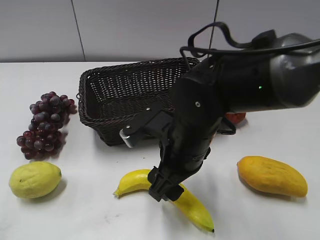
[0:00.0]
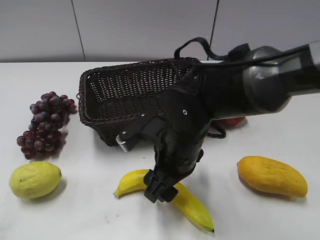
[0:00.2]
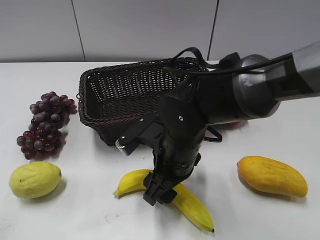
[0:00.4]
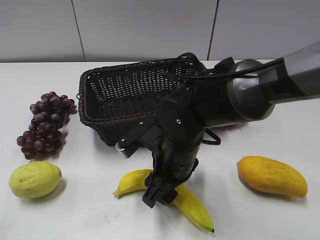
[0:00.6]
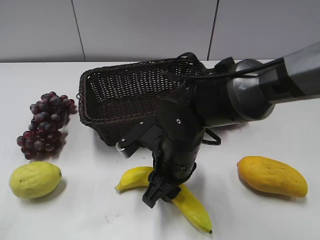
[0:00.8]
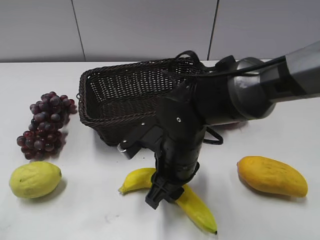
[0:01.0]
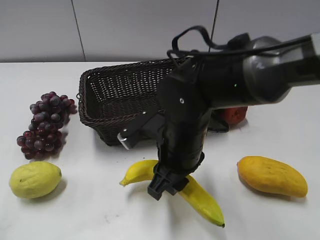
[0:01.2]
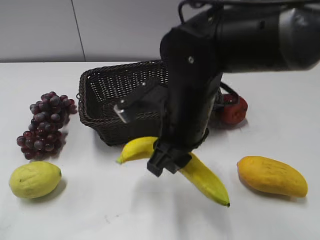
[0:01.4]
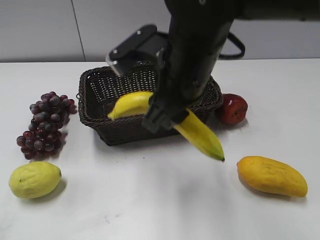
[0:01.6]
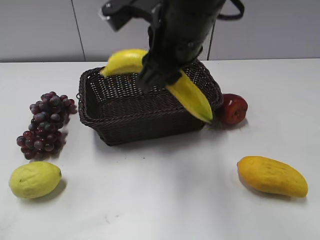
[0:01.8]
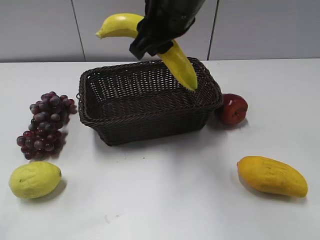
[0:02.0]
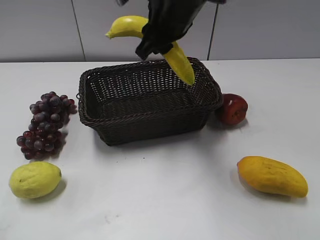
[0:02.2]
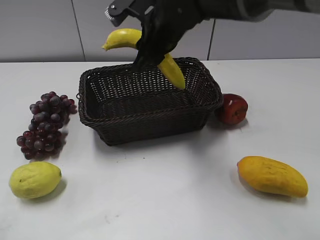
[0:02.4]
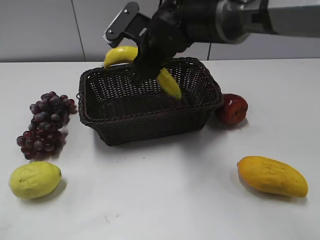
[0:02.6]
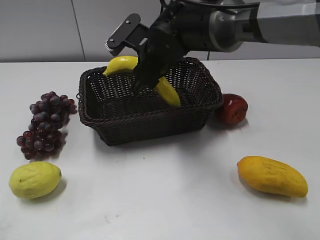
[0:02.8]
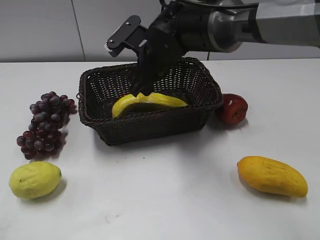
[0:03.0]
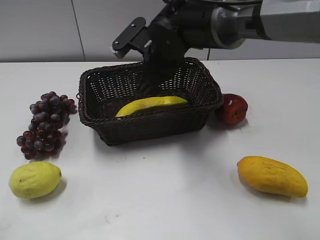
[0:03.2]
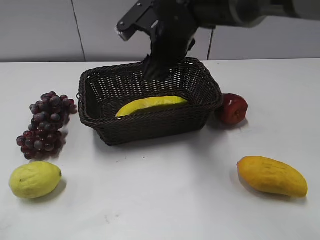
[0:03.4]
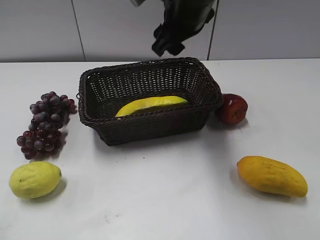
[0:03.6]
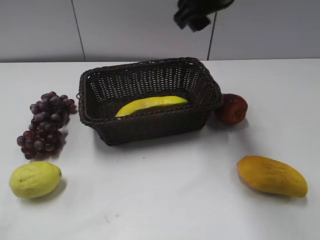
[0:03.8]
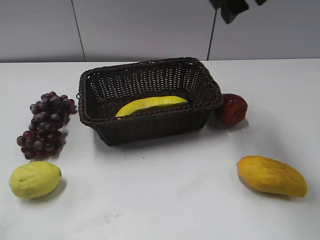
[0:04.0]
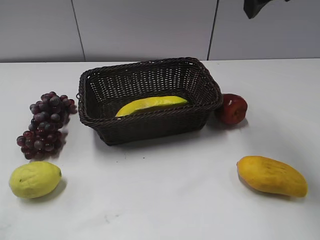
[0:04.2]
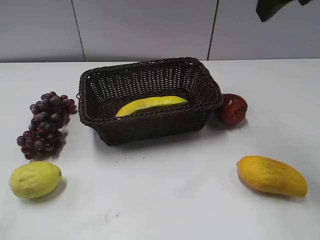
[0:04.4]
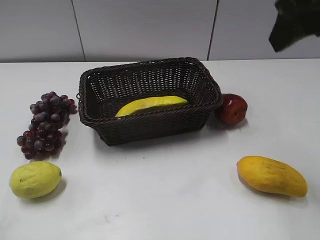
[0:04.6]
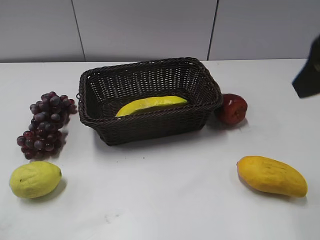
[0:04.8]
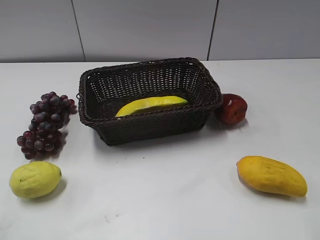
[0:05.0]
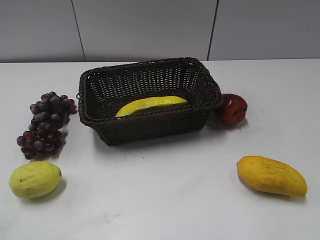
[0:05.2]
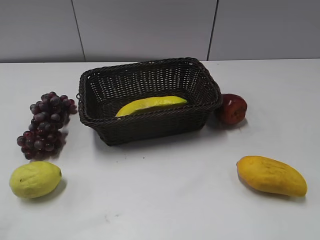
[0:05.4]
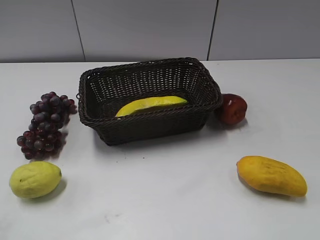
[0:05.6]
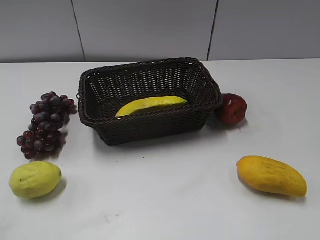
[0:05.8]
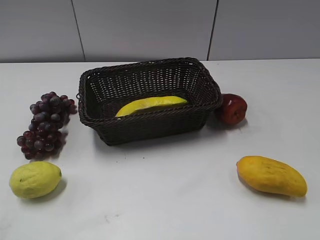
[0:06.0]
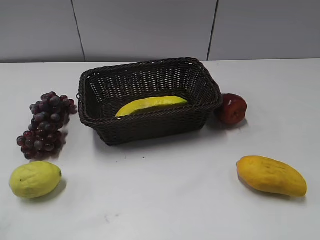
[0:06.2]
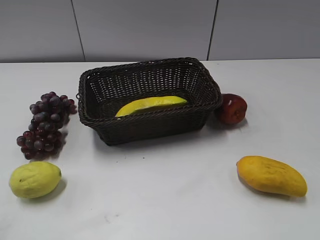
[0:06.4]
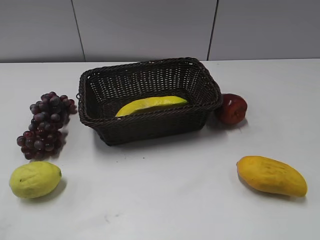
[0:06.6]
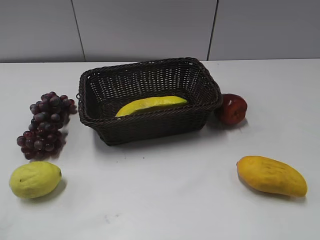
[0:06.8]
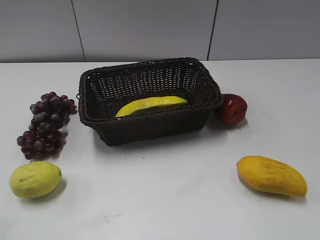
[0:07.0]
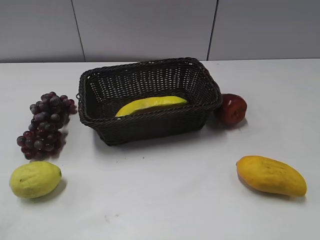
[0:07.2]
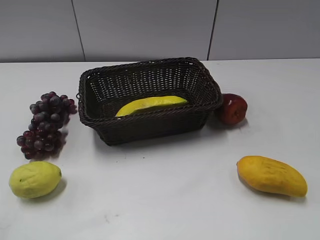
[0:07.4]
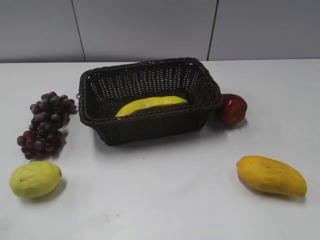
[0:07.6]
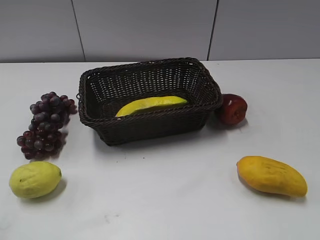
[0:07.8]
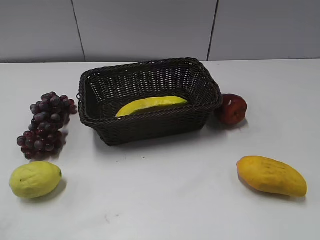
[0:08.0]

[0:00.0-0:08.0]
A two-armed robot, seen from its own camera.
Step, 0:01.2 to 0:03.0: Place the banana in the basket with right gripper.
0:00.0 to 0:01.6: The right gripper shifts approximately 10 cm upward, and closes its fingers.
0:01.6 to 0:03.2: The right gripper travels forward by some 15 cm, and opens up.
0:03.2 to 0:04.8: The right gripper shifts some 30 cm to the right, upward and backward.
0:04.8 to 0:06.4: The right gripper goes about 20 cm backward, downward and to the right.

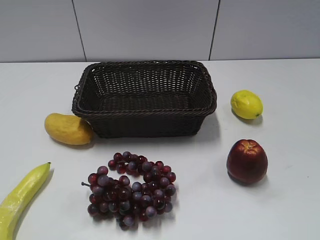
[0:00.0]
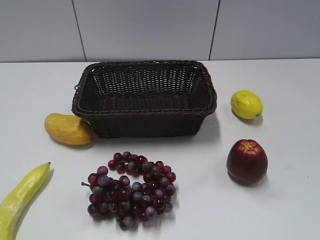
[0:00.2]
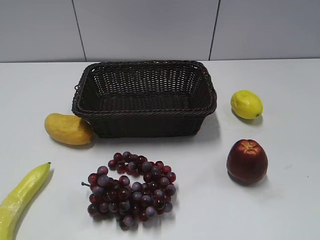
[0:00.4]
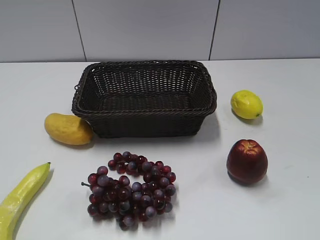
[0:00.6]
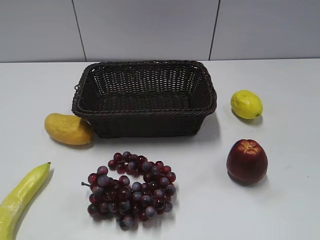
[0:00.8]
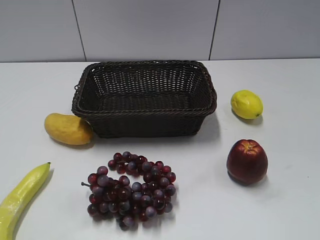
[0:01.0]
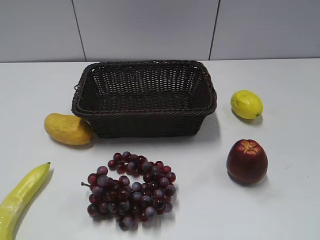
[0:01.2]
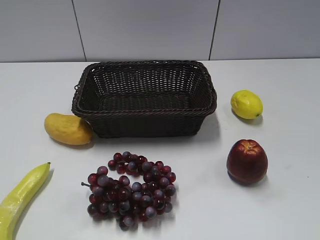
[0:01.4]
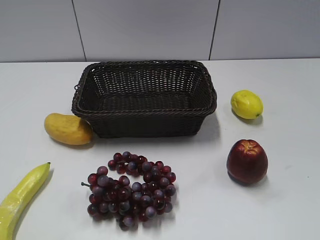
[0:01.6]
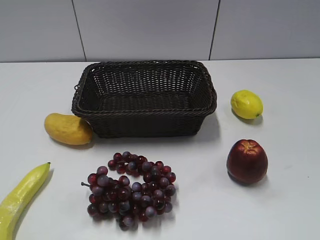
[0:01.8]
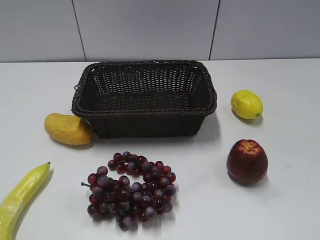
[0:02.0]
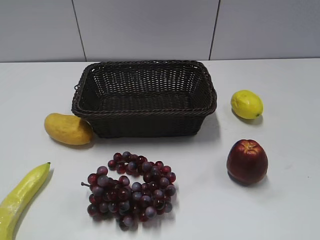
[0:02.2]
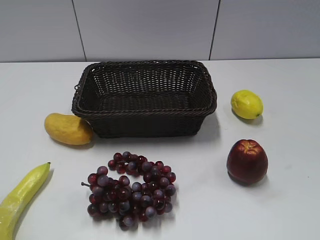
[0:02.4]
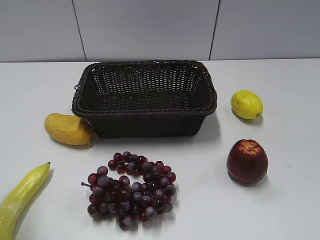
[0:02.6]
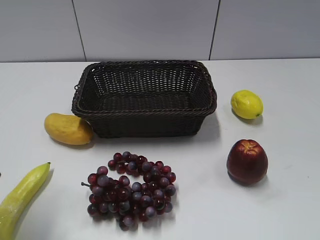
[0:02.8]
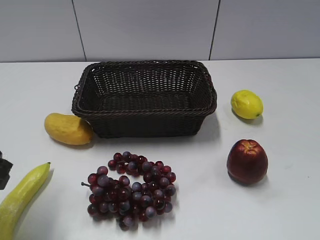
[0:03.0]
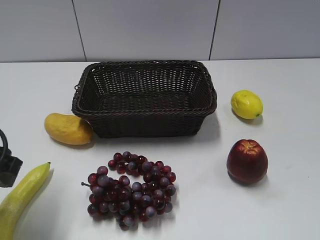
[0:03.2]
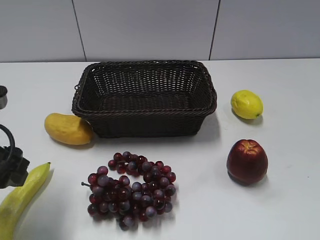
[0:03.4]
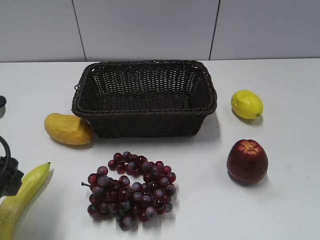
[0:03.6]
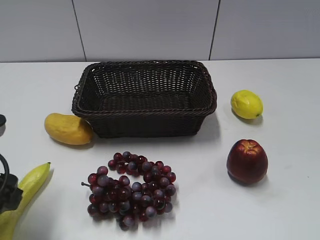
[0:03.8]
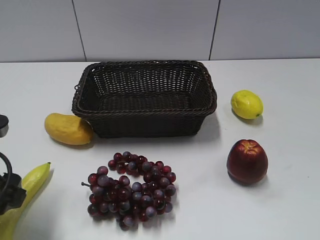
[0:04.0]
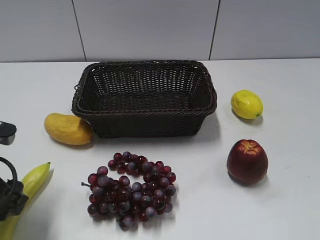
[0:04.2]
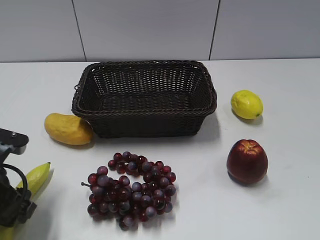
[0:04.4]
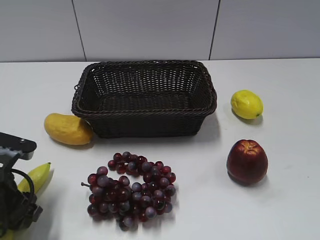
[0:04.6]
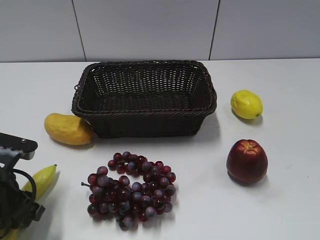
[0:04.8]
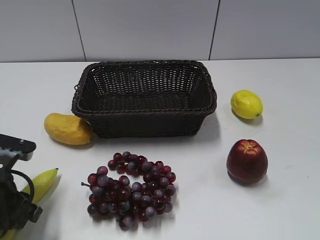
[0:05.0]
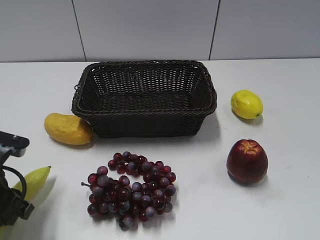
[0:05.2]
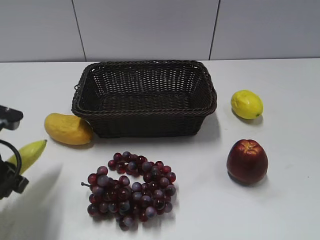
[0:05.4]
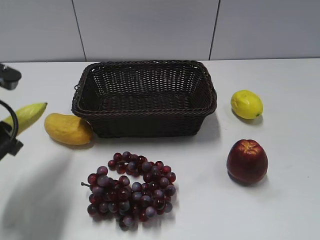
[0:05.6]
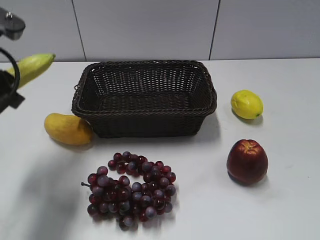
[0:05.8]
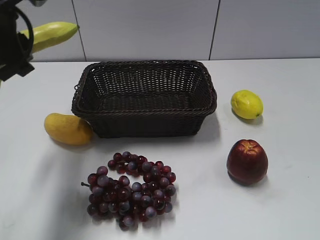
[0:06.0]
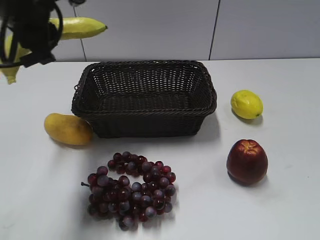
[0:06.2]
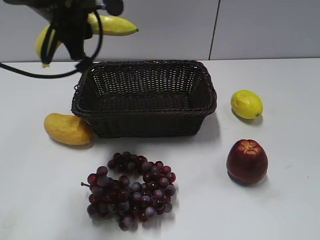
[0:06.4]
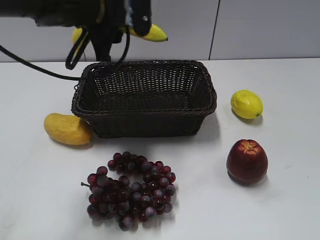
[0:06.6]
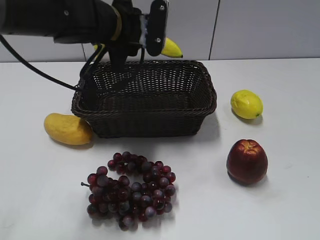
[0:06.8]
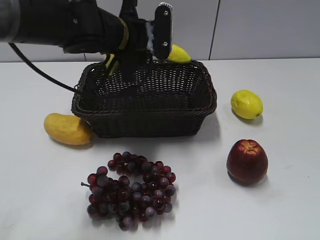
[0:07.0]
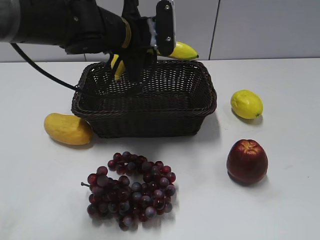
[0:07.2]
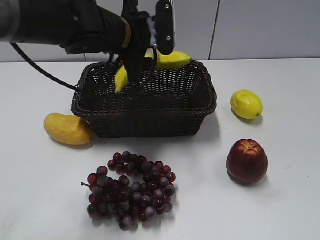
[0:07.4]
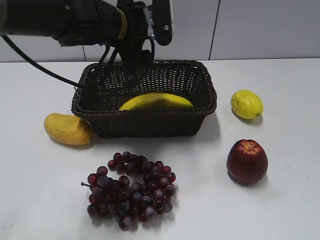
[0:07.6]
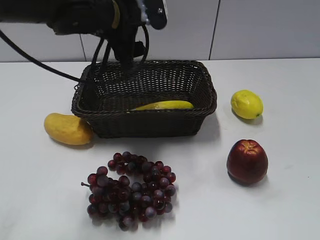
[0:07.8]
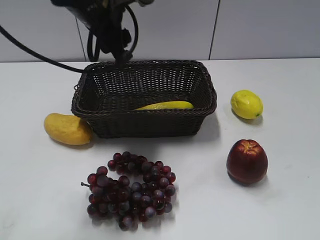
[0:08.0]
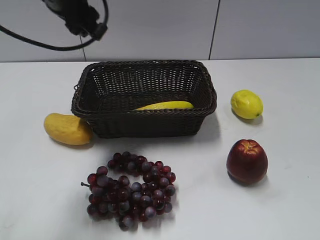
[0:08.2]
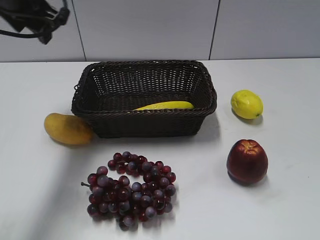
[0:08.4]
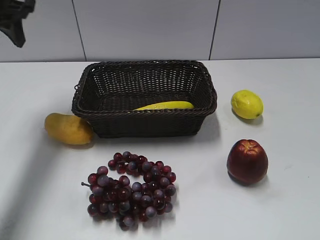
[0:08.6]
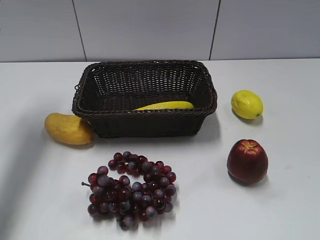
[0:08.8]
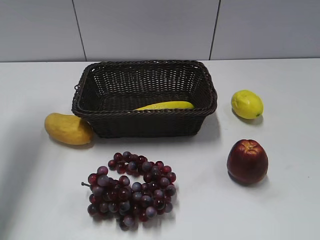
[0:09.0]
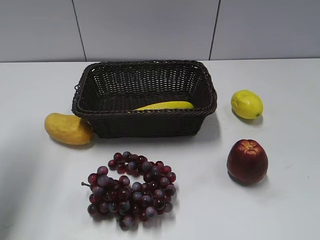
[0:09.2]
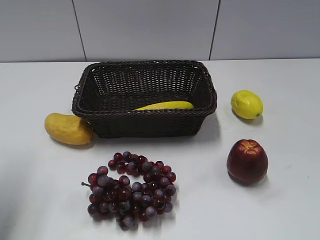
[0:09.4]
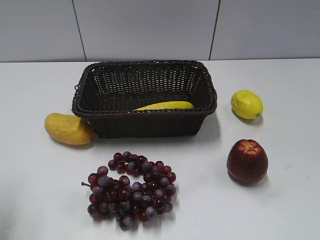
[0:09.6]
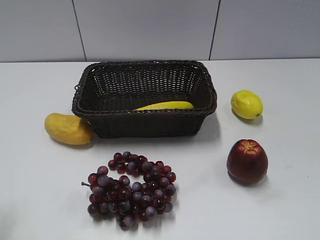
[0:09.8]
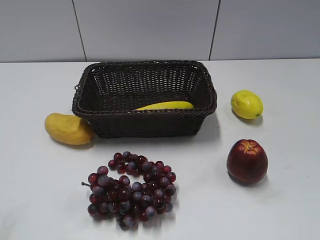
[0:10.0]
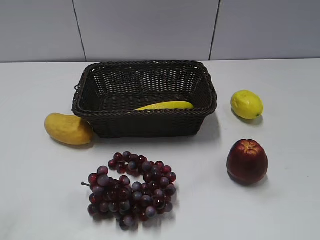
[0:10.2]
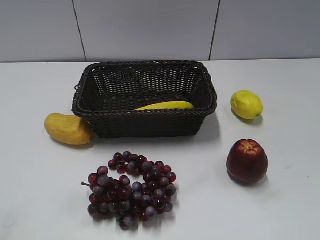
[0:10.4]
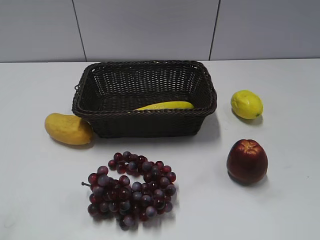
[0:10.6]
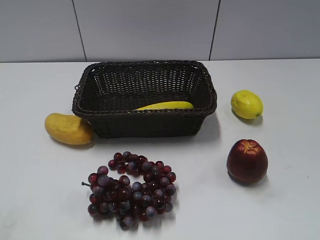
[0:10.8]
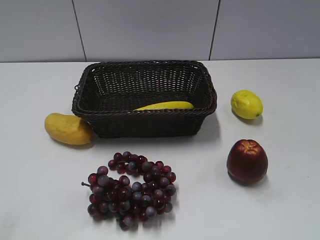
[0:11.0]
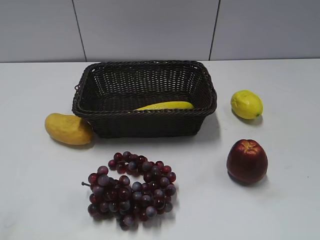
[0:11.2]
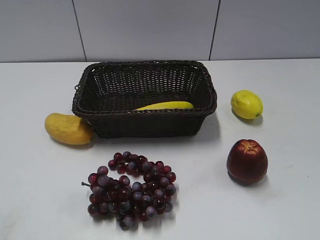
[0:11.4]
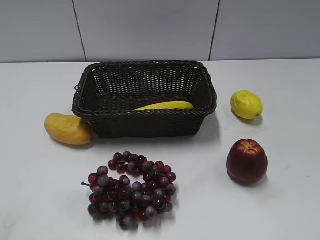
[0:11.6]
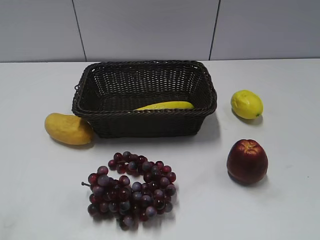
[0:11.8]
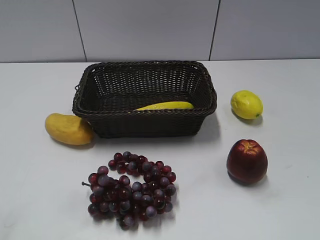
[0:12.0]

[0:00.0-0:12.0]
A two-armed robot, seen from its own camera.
Step, 0:02.8 to 0:04.8: Grasp the banana with left gripper.
Step, 0:05.0 to 0:07.6: Place the banana in the basket with left gripper.
0:01.6 to 0:03.0: The left gripper shifts approximately 10 cm to the right and forward.
0:03.0 to 0:04.4: The left gripper heads downward, covering about 10 cm, and opens.
0:04.4 to 0:06.0: The left gripper heads upward and forward, covering roughly 20 cm, and closes its fingers.
0:06.0 to 0:07.6: The left gripper travels to the right and forward by some 20 cm, and opens.
0:07.6 to 0:09.0: The left gripper is displaced to the left and upward by approximately 25 cm.
0:09.0 to 0:10.4: The left gripper goes roughly 35 cm backward.

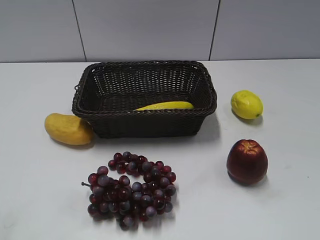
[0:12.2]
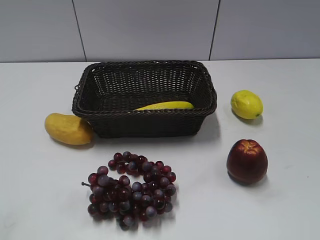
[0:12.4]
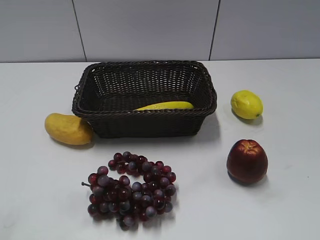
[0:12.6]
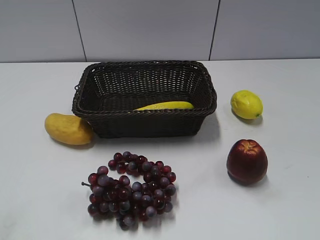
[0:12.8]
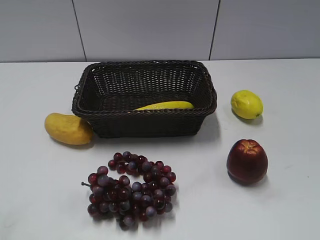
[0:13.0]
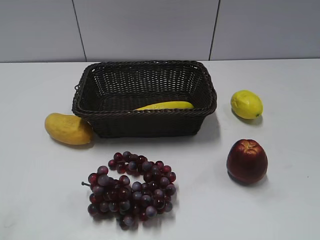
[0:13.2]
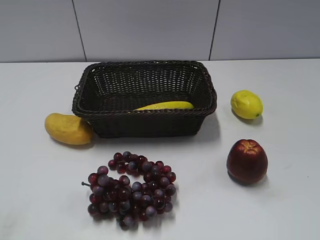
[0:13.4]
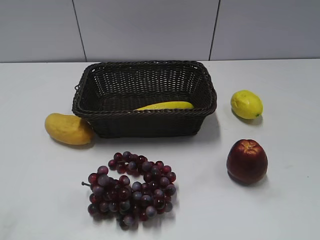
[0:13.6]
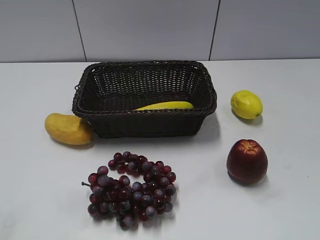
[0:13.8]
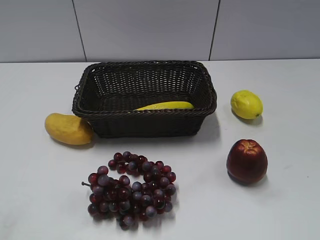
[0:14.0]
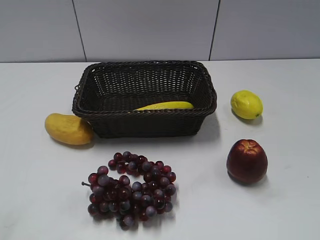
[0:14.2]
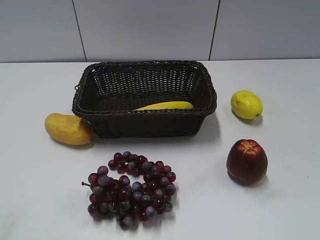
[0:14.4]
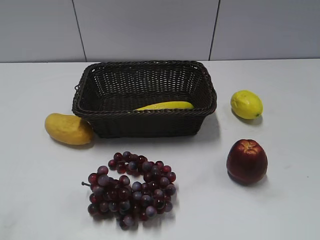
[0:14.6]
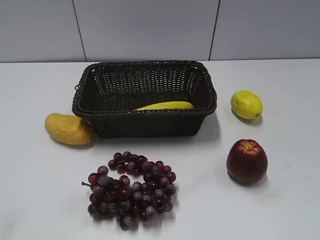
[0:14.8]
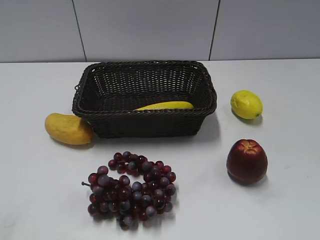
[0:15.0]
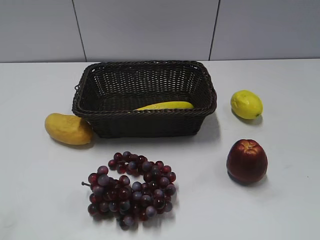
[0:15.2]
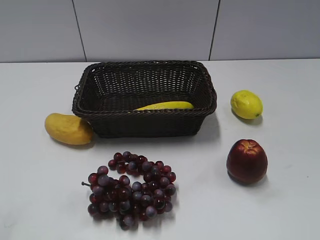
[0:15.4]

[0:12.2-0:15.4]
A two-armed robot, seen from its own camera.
0:12.2 to 0:15.4: Both grippers stay about where they are.
